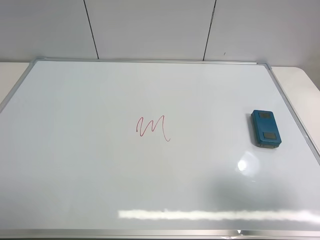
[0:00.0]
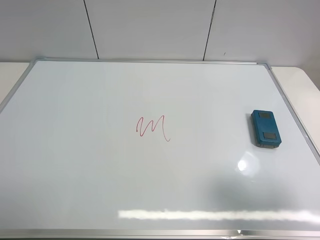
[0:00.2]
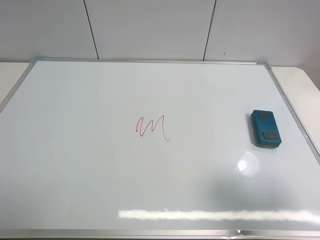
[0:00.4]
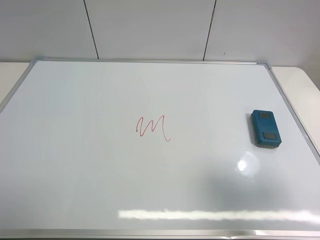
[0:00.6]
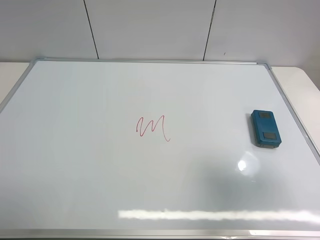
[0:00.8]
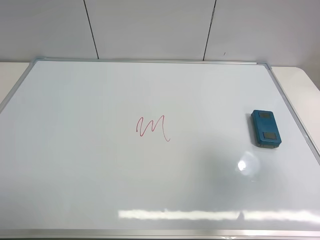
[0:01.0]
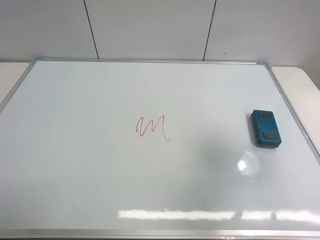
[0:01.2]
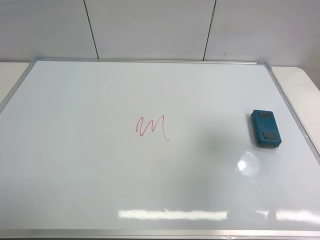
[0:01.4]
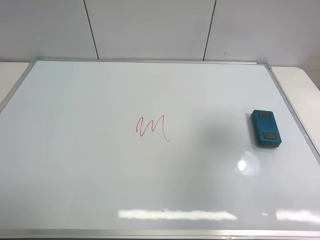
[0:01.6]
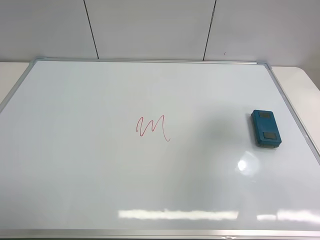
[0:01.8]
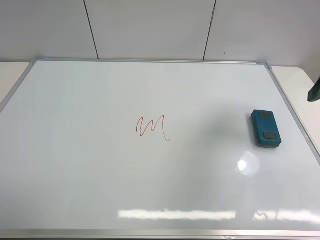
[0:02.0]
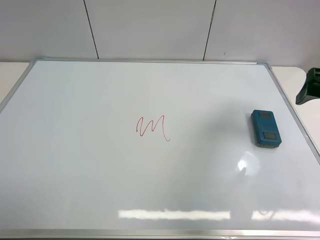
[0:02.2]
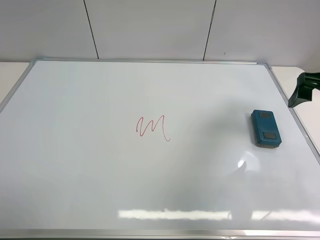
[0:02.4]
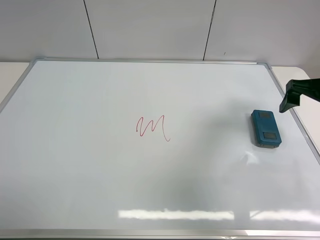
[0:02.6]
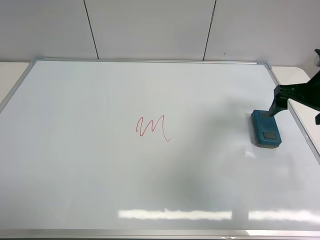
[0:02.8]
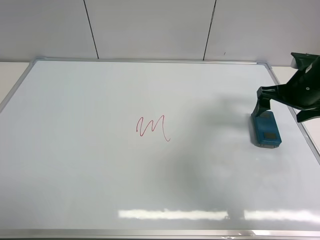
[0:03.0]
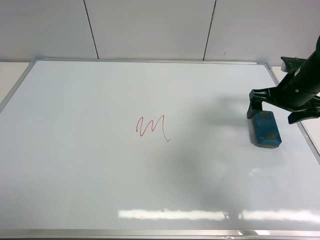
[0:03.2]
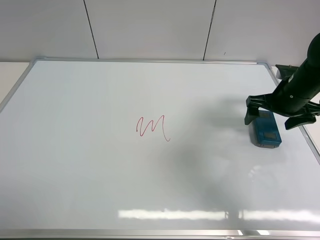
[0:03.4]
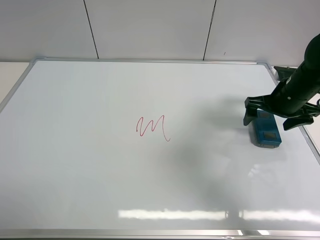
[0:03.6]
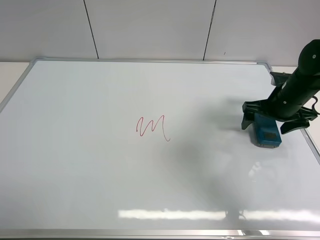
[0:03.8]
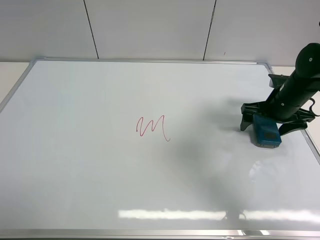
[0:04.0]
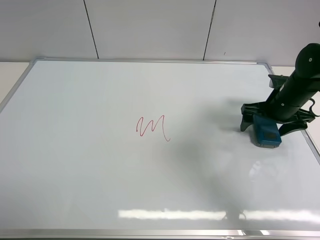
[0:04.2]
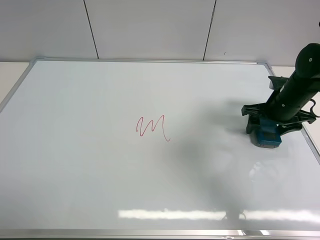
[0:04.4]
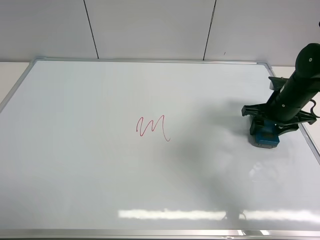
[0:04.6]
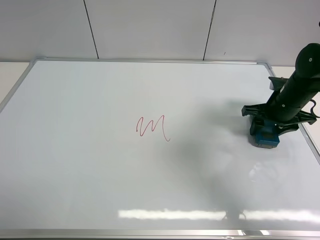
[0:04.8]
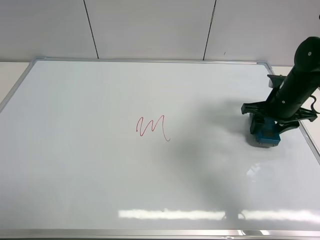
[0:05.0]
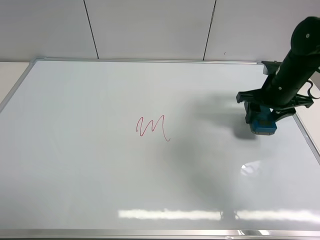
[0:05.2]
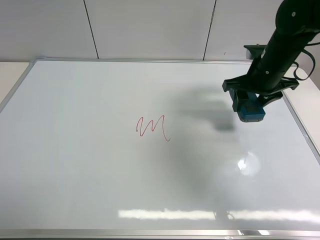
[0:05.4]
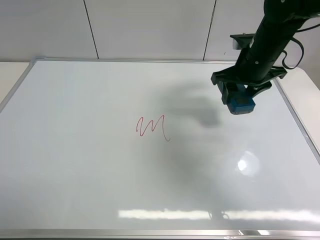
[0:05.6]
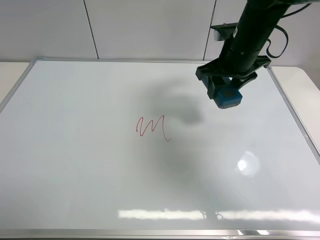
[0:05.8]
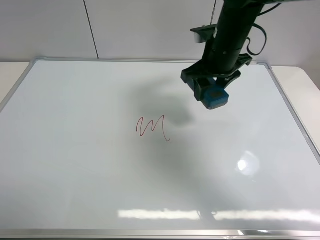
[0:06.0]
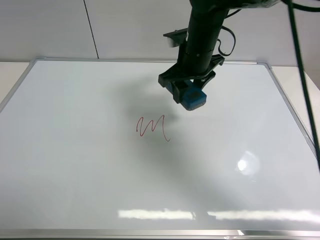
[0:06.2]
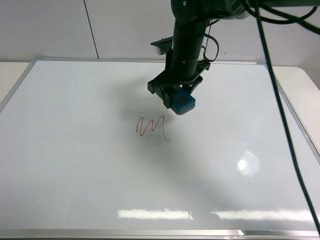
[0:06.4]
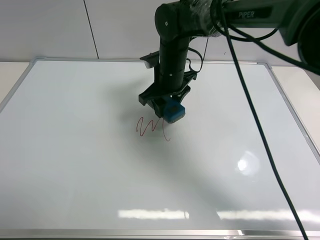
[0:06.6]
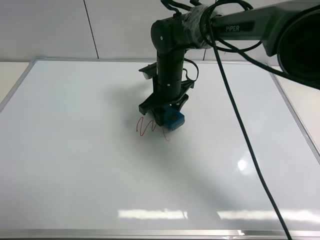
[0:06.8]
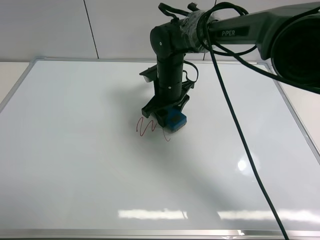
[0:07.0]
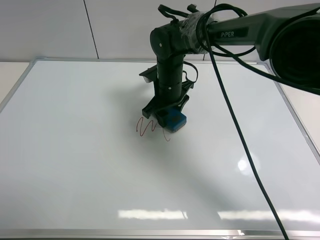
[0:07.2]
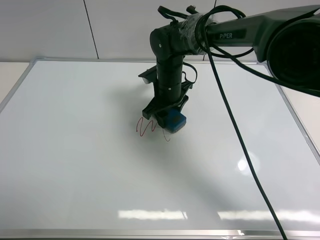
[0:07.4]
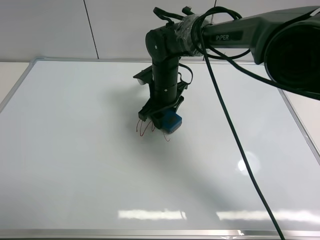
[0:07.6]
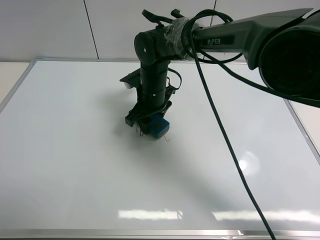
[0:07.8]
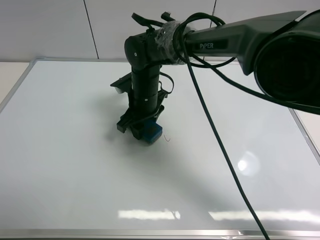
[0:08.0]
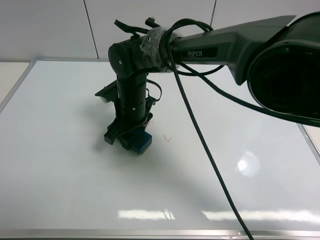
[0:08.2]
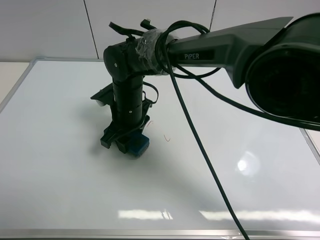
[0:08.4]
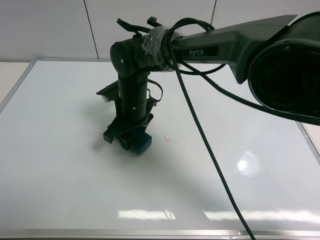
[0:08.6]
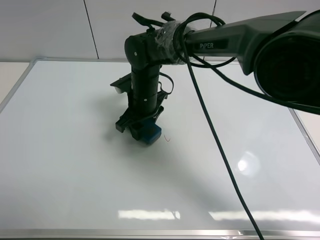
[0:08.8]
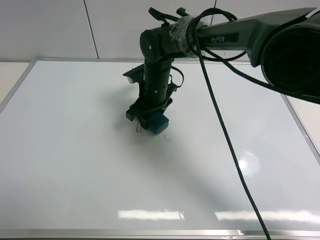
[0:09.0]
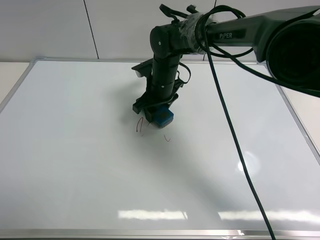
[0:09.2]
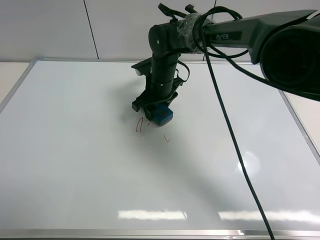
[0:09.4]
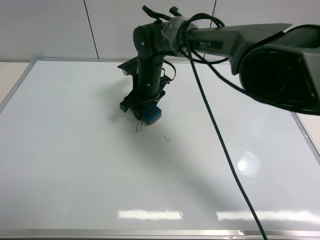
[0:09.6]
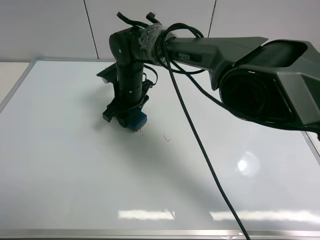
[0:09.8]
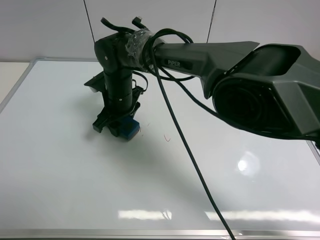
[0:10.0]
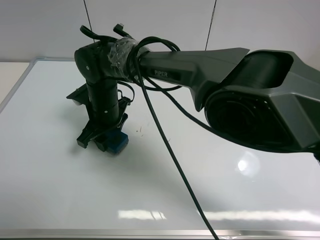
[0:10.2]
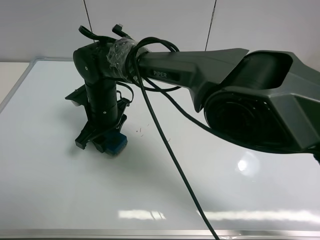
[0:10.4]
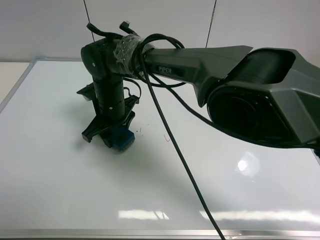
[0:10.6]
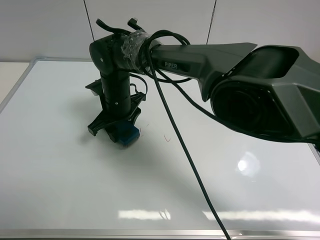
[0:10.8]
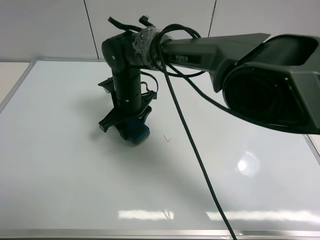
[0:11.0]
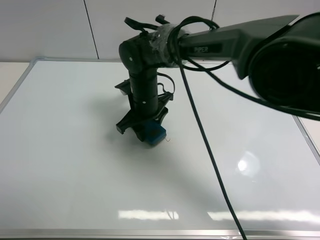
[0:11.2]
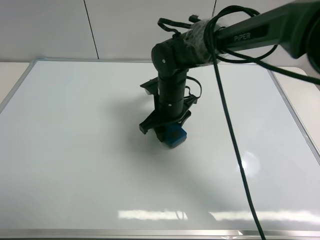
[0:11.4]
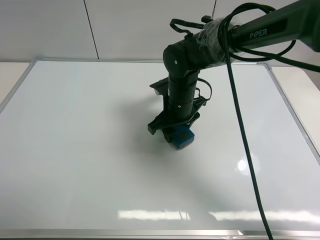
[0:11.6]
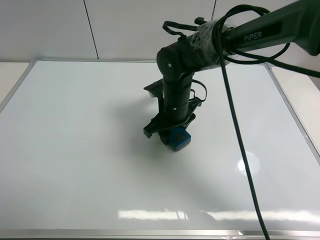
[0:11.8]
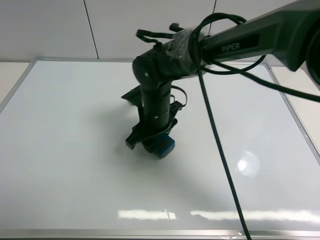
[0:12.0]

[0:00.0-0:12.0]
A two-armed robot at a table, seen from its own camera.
Task of the whole recording: use the right gripper to pick up the board eraser, wipe the notes on the whiteboard clean, and then put them back in place.
Step, 0:00.0 to 0:05.0: Pick up the board eraser with right gripper.
0:00.0 to 0:01.6: The right gripper shifts some 15 cm forward.
0:01.6 to 0:03.0: The right gripper is displaced forward and downward by some 20 cm.
0:03.0 to 0:04.4: The right gripper shifts approximately 5 cm downward, and closes.
0:04.4 to 0:06.0: The right gripper shifts approximately 20 cm to the left and upward.
0:06.0 to 0:07.6: The right gripper is displaced downward and to the left by roughly 15 cm.
0:09.0 to 0:10.4: The right gripper shifts approximately 15 cm to the left and backward.
0:10.4 to 0:12.0: The right gripper shifts approximately 10 cm to the right.

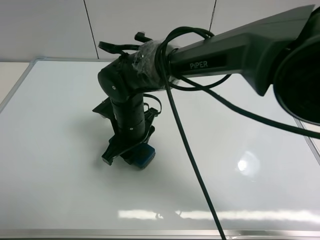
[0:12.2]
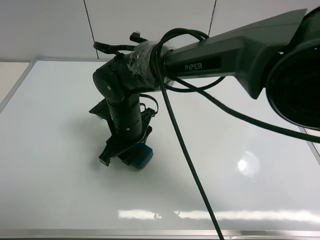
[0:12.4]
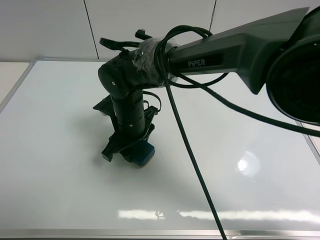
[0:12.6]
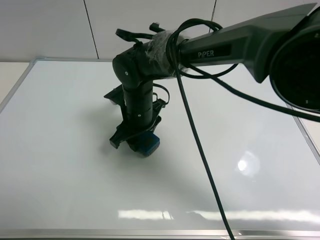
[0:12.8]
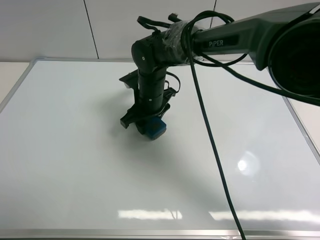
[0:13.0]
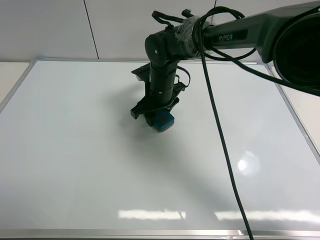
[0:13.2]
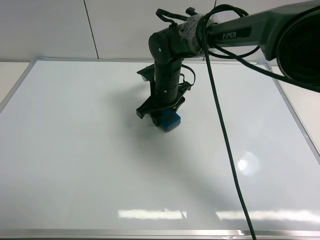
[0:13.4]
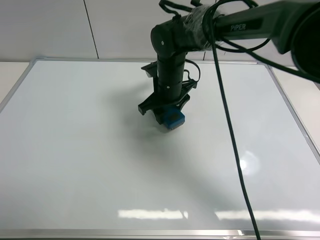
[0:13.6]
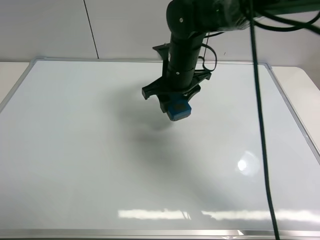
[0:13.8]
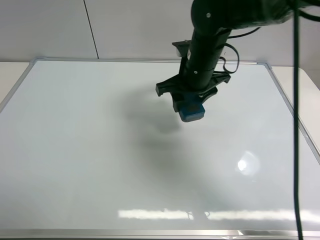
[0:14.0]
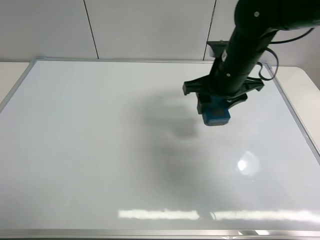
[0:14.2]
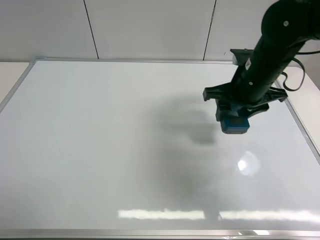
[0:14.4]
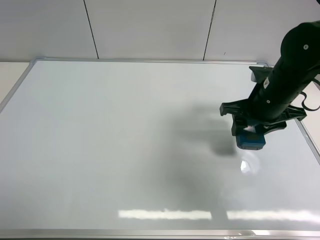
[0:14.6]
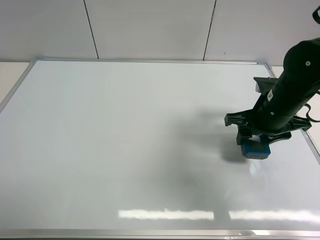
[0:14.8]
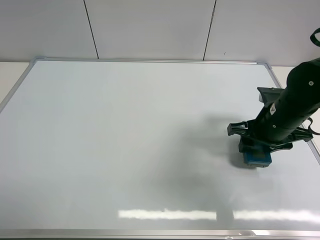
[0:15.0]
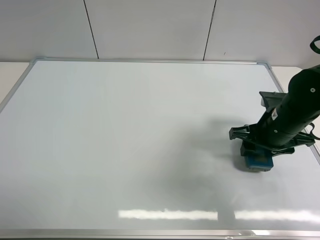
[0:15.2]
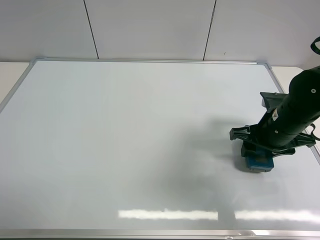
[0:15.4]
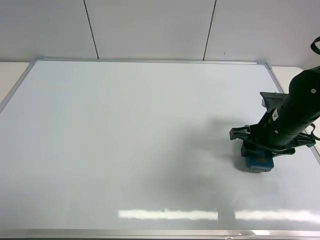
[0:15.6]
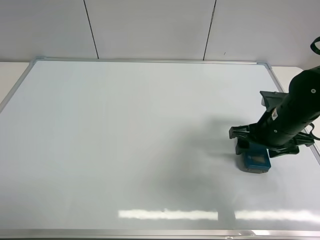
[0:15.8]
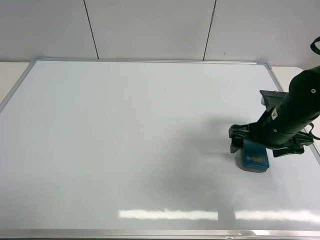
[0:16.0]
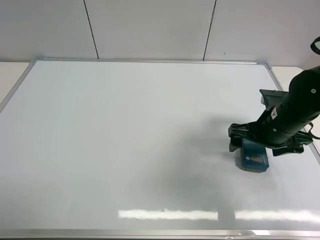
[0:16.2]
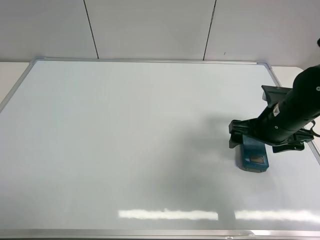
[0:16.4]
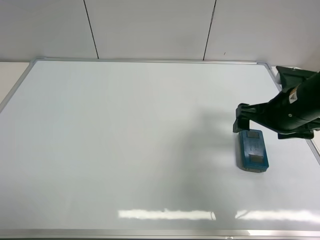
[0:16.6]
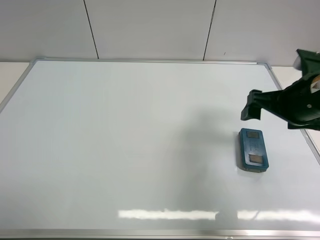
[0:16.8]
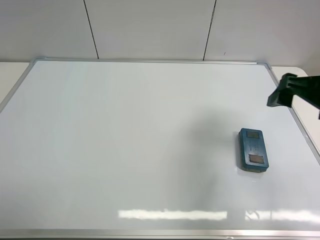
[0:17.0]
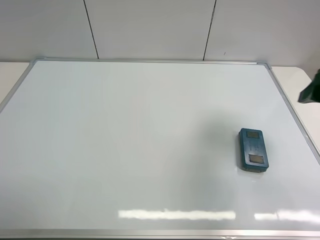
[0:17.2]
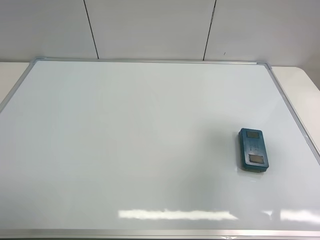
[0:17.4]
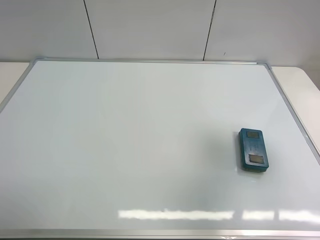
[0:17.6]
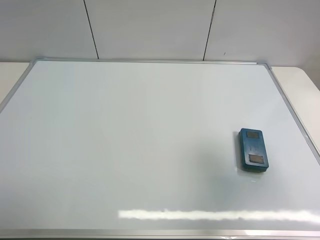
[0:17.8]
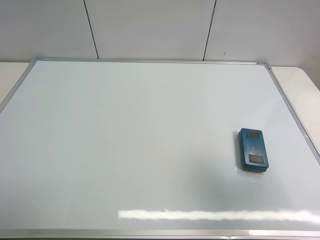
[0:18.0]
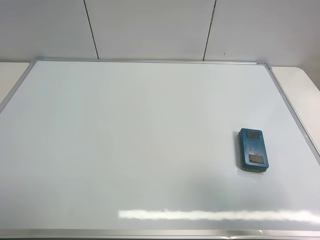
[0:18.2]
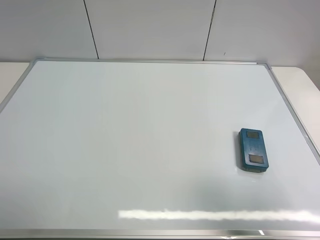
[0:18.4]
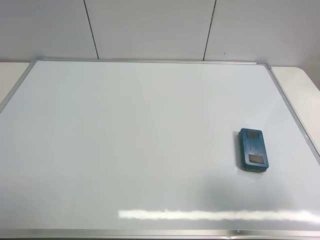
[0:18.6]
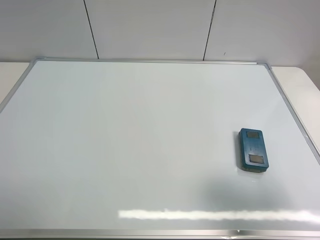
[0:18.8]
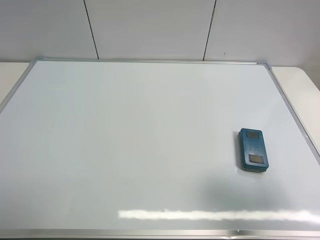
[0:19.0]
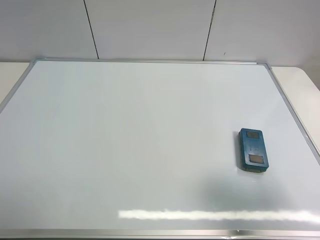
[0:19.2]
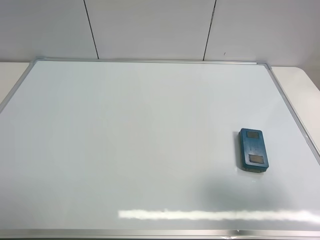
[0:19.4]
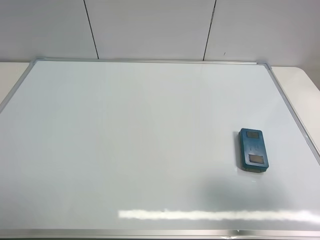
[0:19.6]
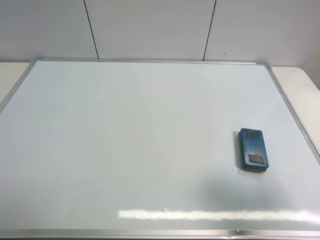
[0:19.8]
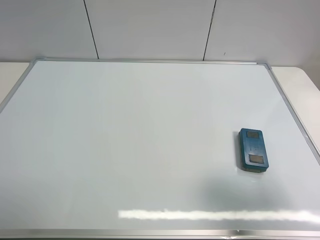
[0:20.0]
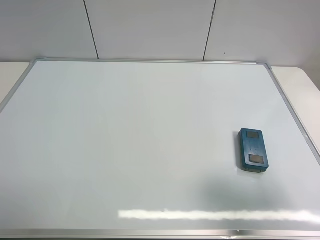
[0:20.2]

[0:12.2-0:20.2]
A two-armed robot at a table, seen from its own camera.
Task of the whole recording: use the right gripper to pick up the board eraser, wipe the notes on the whiteboard clean, and then put them back in place.
Step, 0:13.6 to 0:16.0: Place the board eraser on the right side of board with right gripper.
0:12.2 to 0:13.8: The right gripper shifts about 15 cm to the right, upward and forward.
0:13.8 to 0:15.4: The right gripper moves to the right and backward, approximately 20 cm.
0:15.4 to 0:17.0: The right gripper heads upward, covering some 10 cm, and opens.
0:17.0 to 0:18.6: The right gripper goes about 20 cm backward.

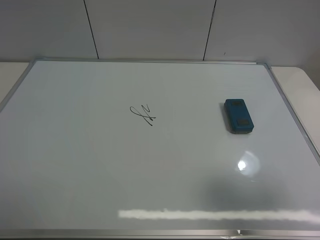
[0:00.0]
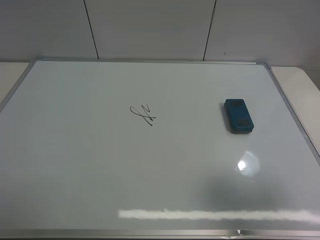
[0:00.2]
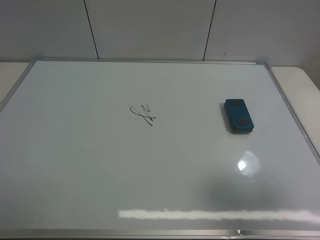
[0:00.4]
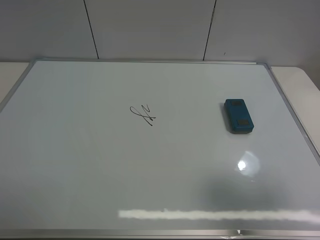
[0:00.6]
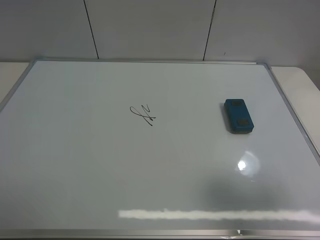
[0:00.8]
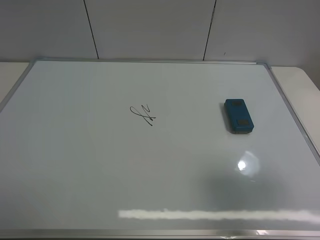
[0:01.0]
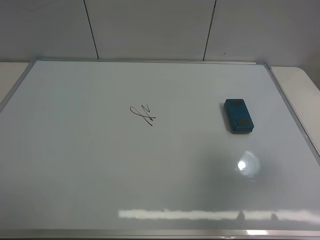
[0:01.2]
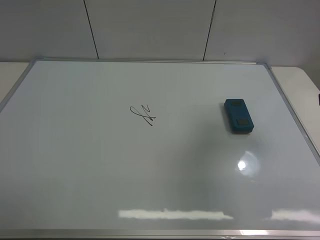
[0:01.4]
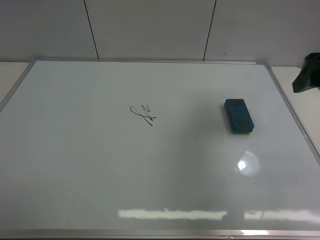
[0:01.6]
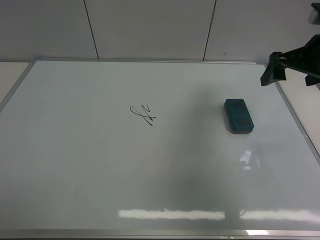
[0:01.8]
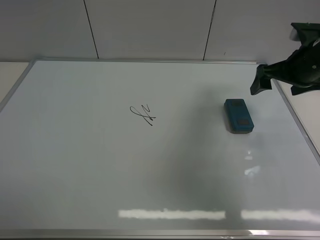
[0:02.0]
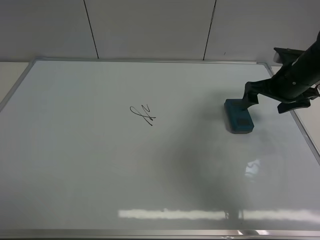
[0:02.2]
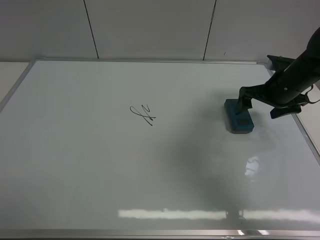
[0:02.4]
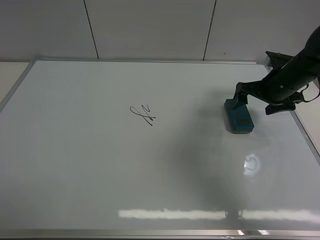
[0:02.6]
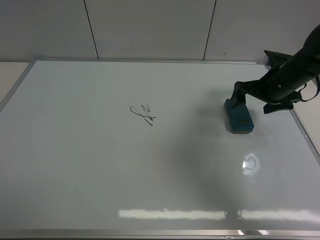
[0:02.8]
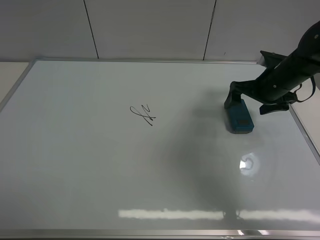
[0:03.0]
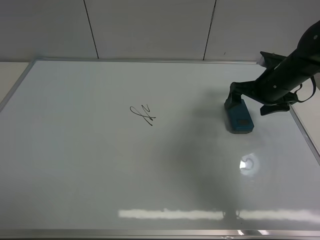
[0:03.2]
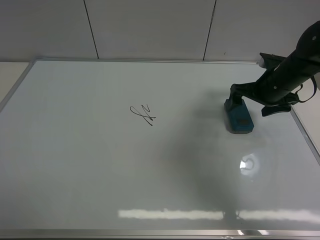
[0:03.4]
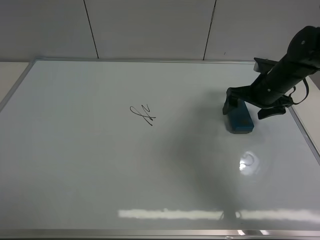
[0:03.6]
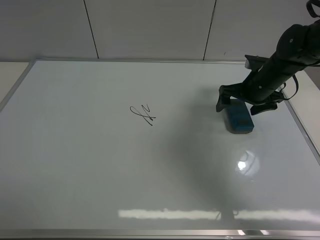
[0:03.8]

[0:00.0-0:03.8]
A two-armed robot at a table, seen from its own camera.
Task of the whole recording: use the right gripper to pick up the board eraser, wipe the notes on the whiteboard clean, and then put them back in place.
0:00.0 to 0:01.2: The right gripper travels forward by some 10 cm.
0:01.2 to 0:02.6: The right gripper moves forward and downward, about 30 cm.
0:02.6 to 0:03.8: The grippers make only small movements.
